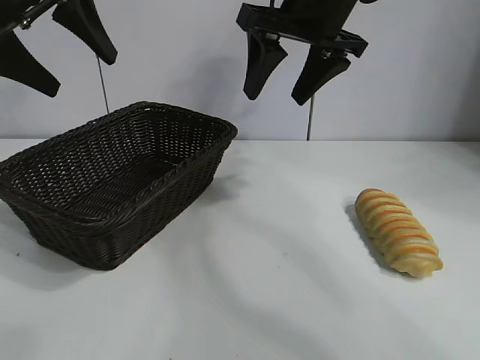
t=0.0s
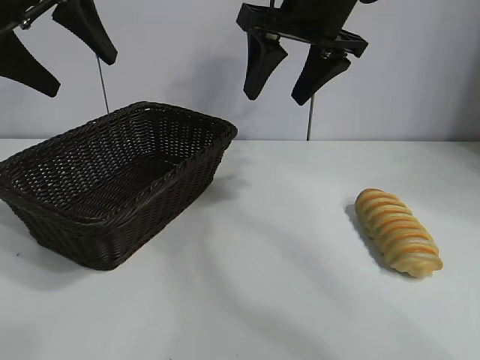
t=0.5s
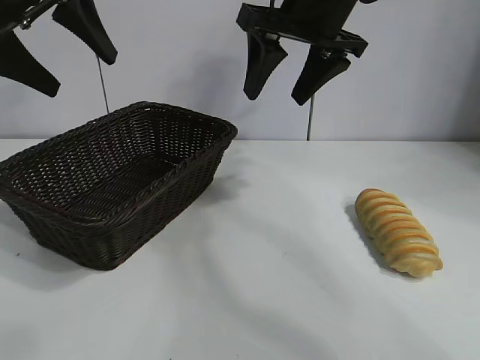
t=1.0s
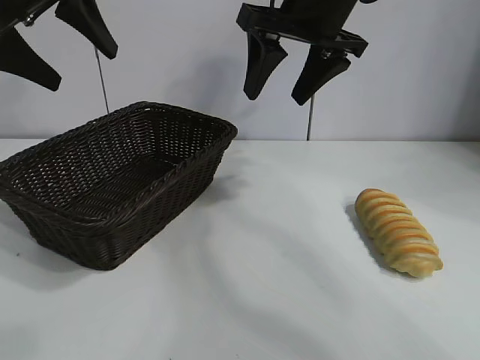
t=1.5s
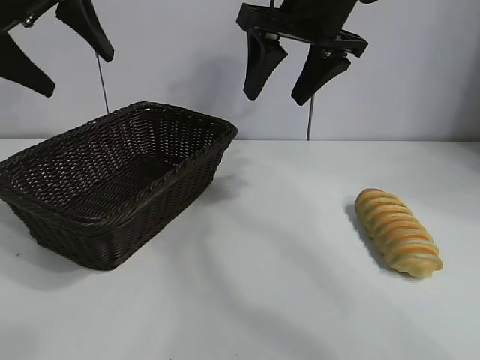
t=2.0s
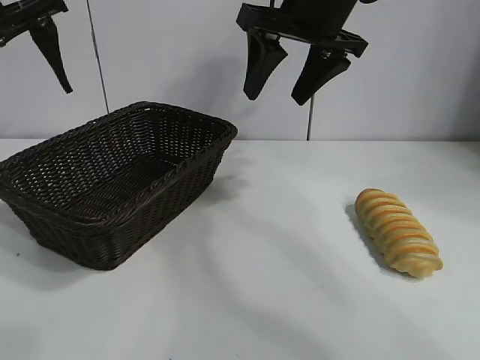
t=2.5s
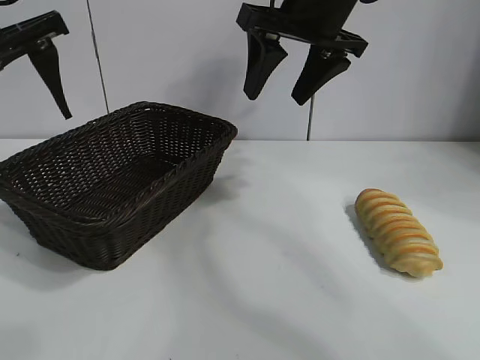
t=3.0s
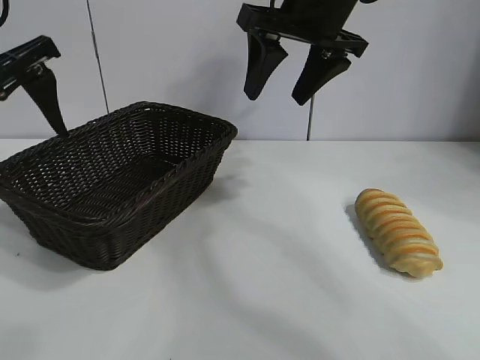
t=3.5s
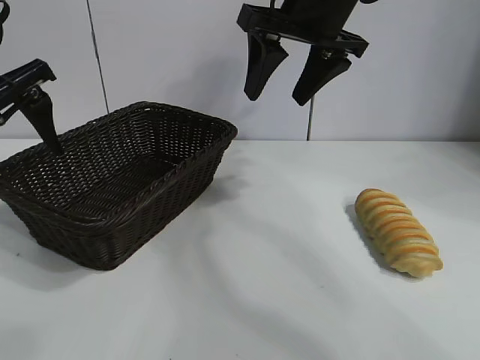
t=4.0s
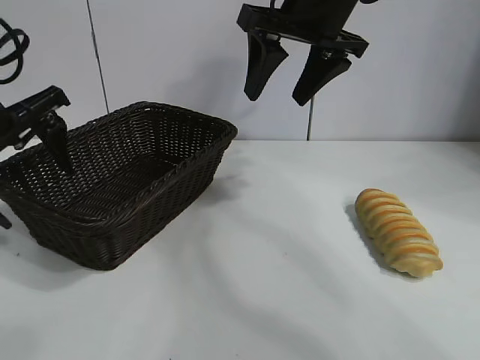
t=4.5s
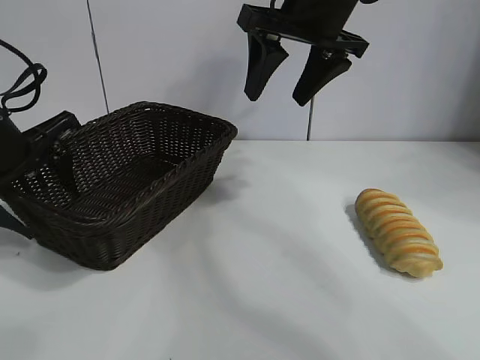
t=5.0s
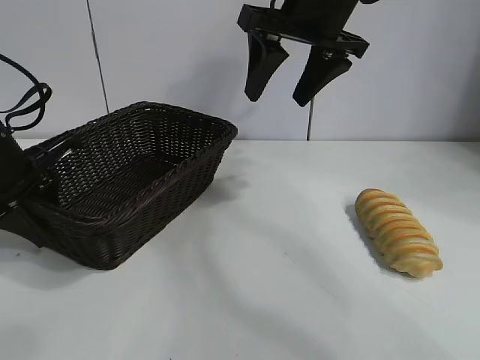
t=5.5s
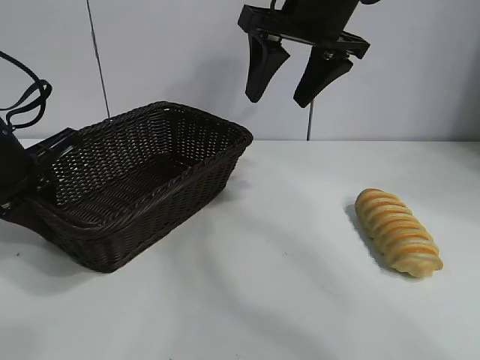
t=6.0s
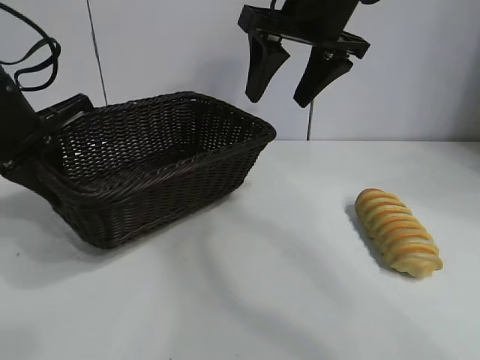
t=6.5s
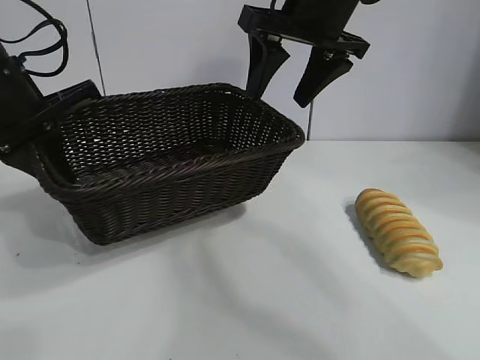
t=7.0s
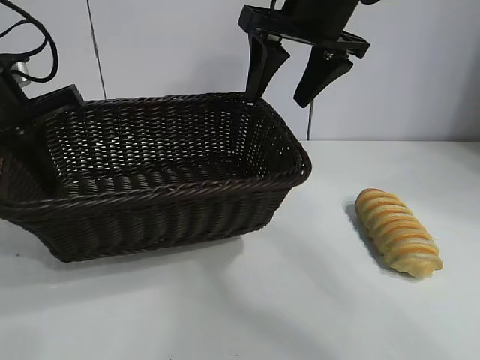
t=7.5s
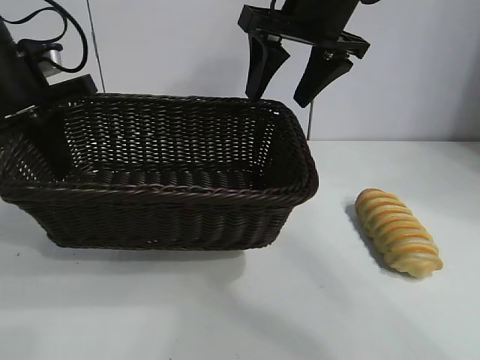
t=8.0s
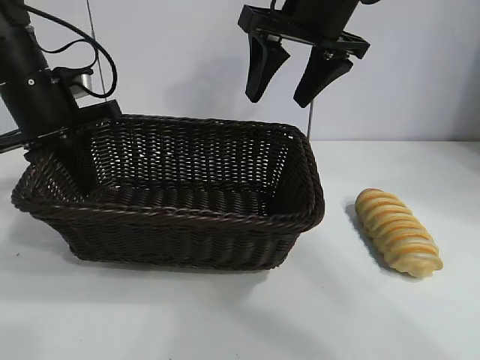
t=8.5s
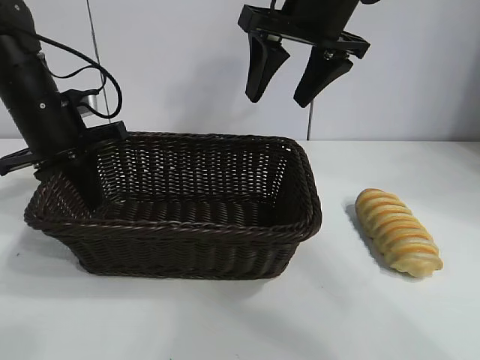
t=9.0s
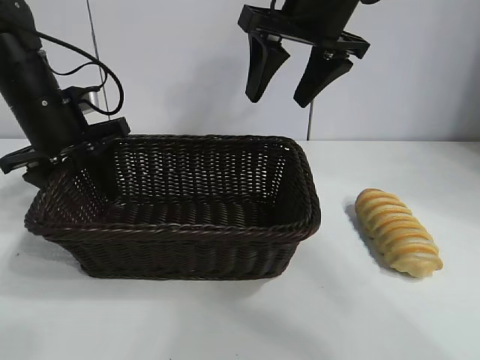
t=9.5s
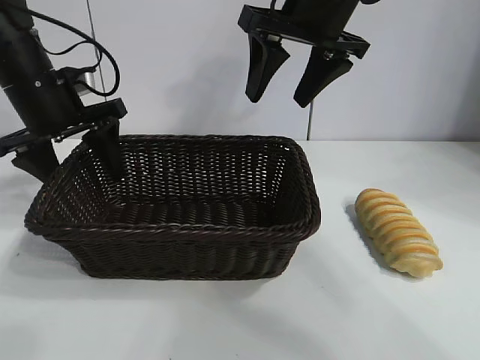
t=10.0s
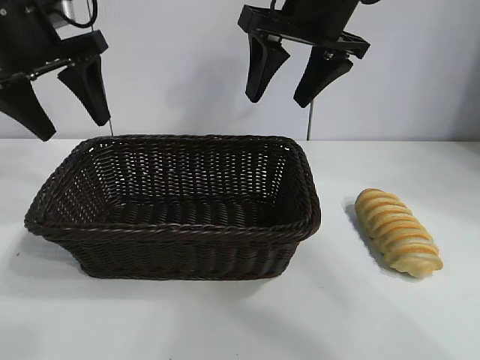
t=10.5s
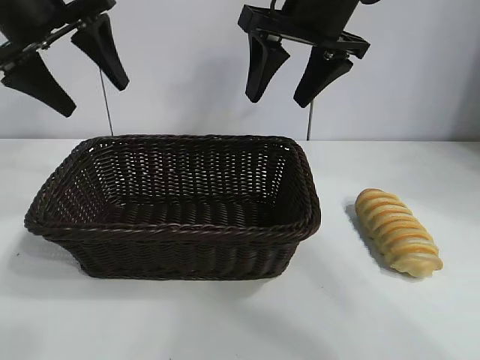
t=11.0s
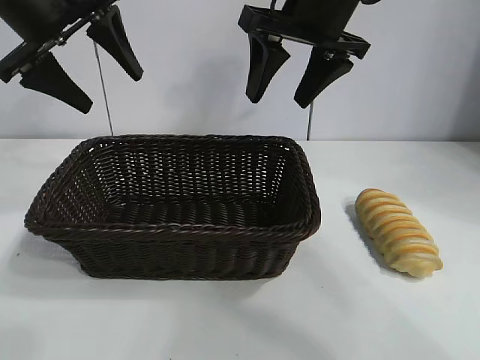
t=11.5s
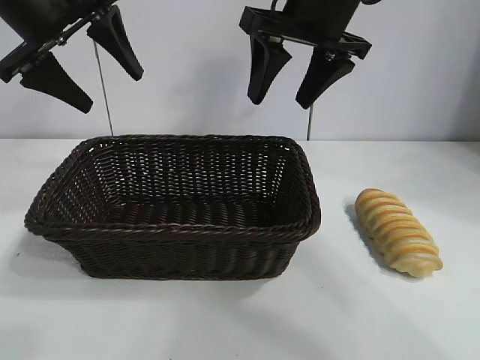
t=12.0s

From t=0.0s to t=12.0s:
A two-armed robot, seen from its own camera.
Task of the whole recording: pick up the long bread and put it into the basket.
Step, from t=1.5s to t=5.5s: Grasp the basket with the left gripper.
Step, from t=6.0s to t=9.5s: Place the basket in the center of the table with the left gripper.

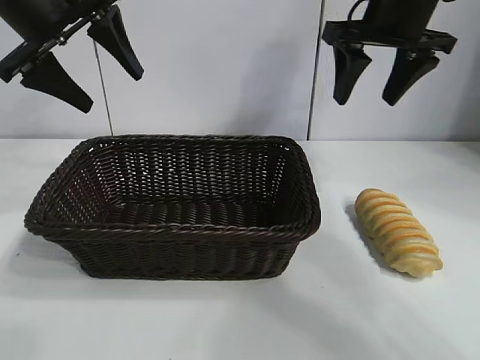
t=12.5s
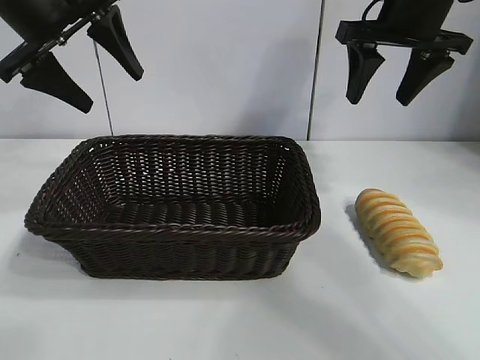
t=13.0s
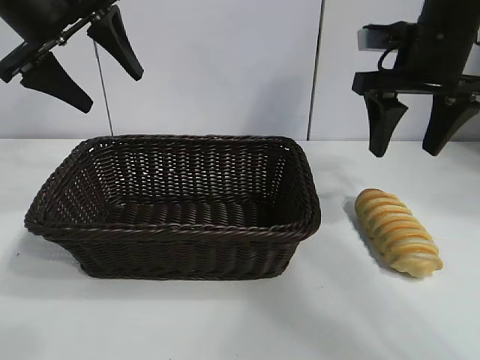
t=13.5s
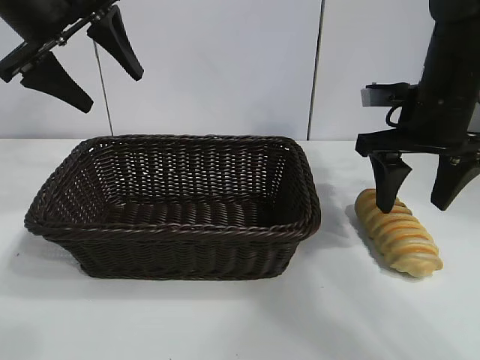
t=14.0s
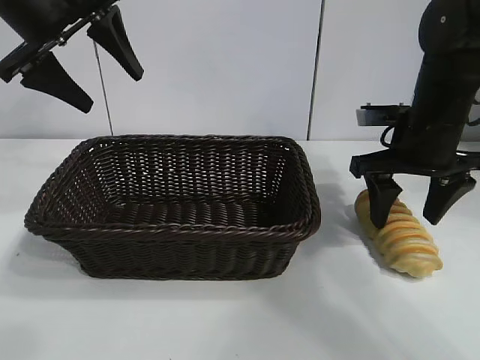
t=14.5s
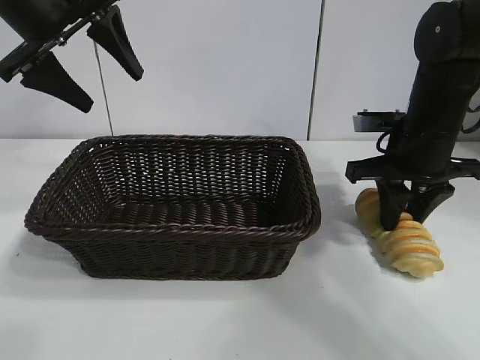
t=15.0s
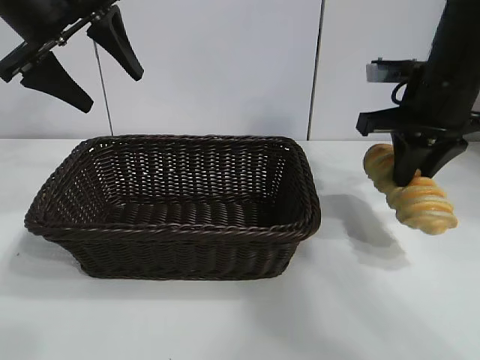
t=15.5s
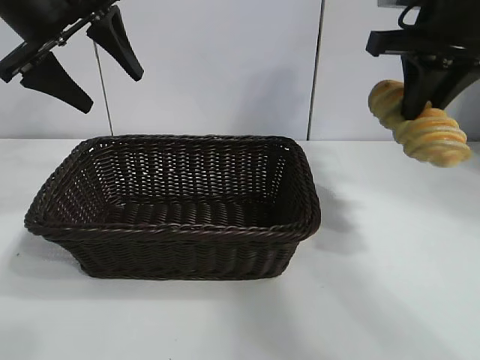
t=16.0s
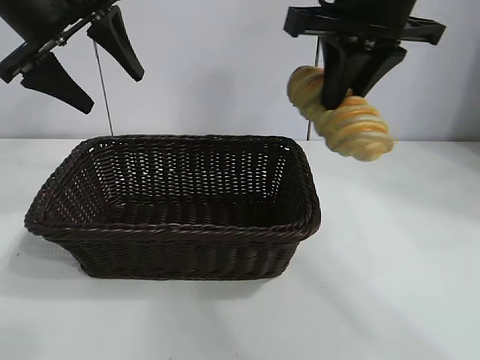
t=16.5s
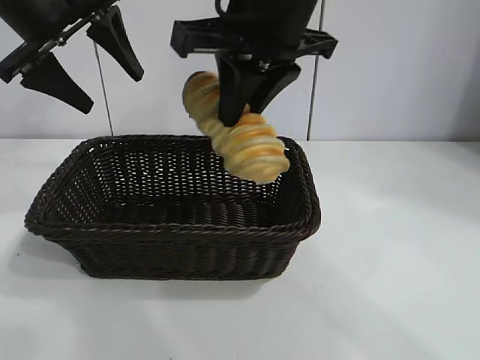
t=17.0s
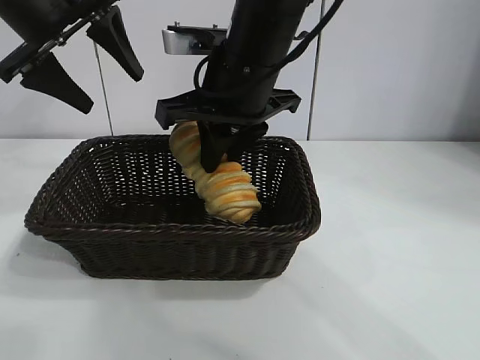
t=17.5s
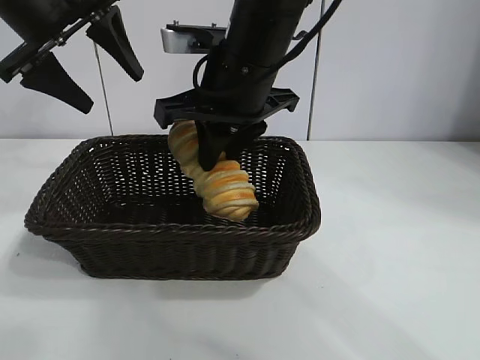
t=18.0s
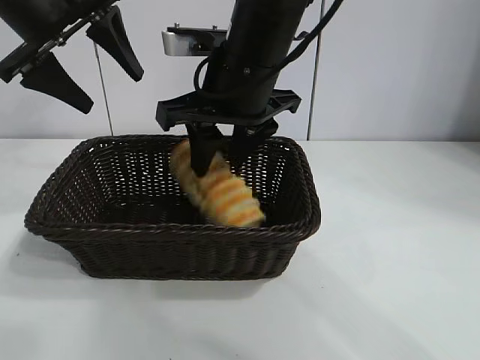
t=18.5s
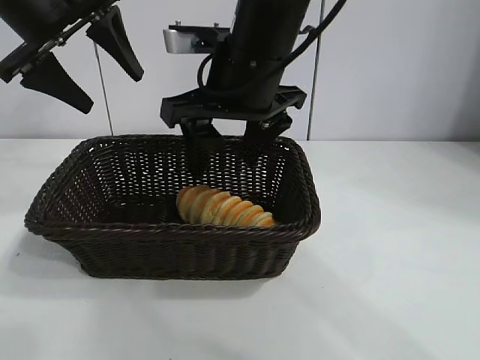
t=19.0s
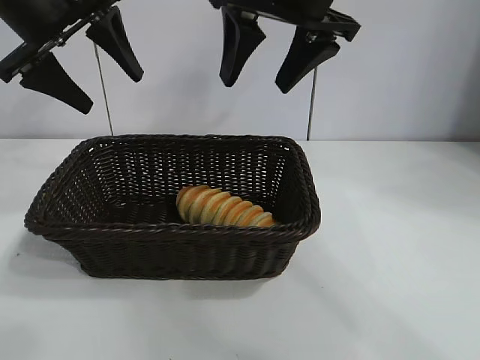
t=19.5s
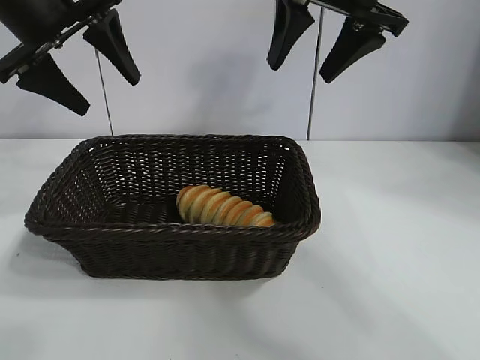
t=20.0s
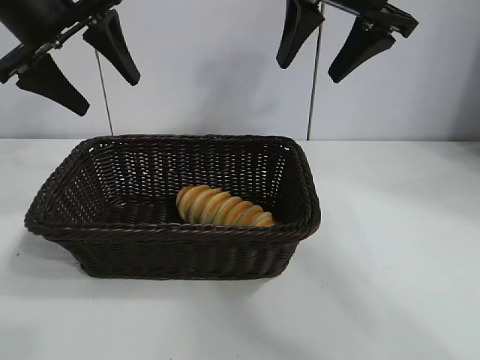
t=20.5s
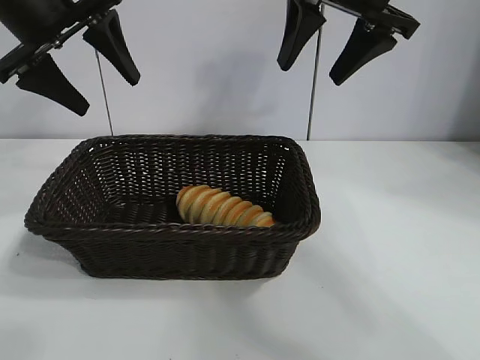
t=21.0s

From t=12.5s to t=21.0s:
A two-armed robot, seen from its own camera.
Task of the whole recording: pick up the long bread and put it into the basket.
Step, from t=12.5s to t=15.0s: Grasp the long bread with right gripper.
Step, from t=15.5s to t=18.5s: Place the long bread in the basket with right gripper.
